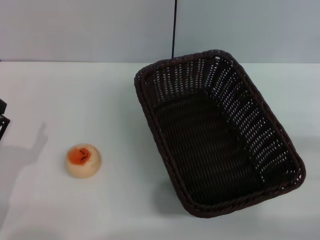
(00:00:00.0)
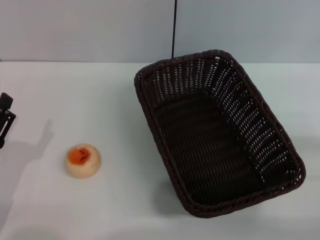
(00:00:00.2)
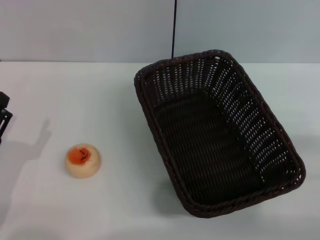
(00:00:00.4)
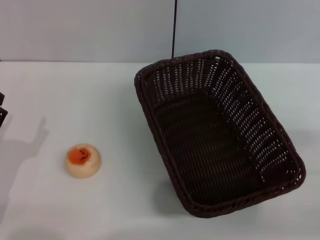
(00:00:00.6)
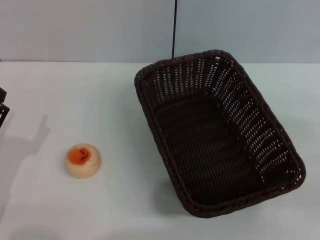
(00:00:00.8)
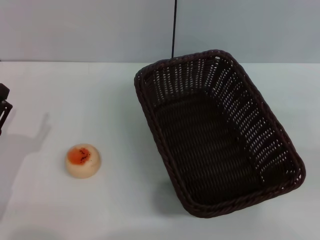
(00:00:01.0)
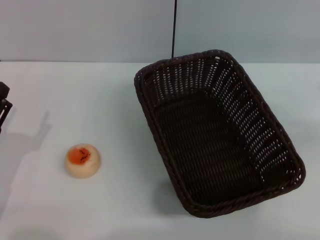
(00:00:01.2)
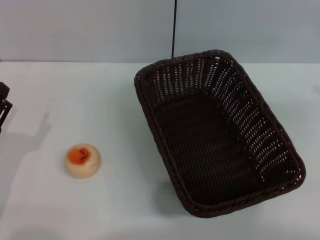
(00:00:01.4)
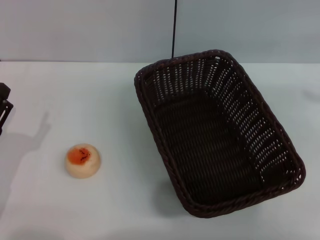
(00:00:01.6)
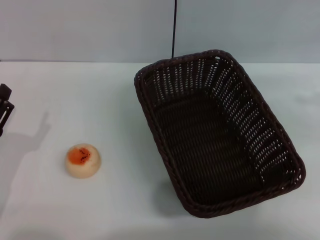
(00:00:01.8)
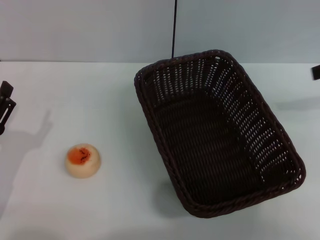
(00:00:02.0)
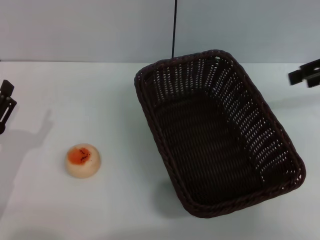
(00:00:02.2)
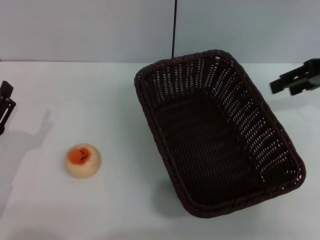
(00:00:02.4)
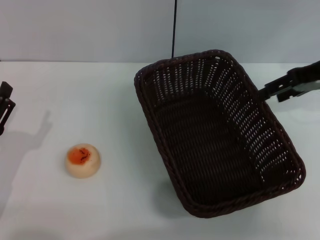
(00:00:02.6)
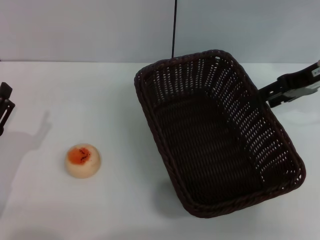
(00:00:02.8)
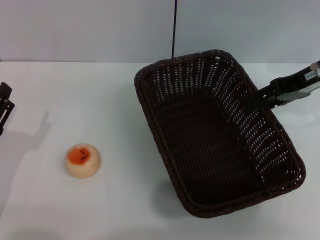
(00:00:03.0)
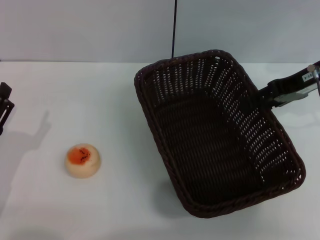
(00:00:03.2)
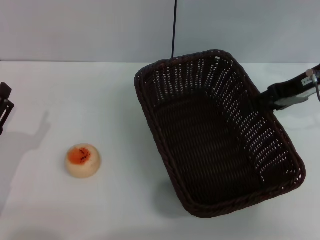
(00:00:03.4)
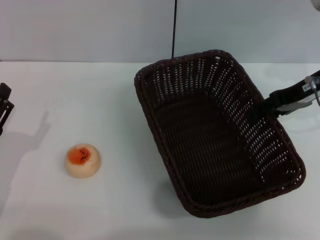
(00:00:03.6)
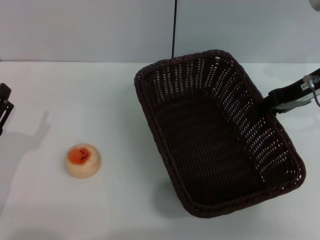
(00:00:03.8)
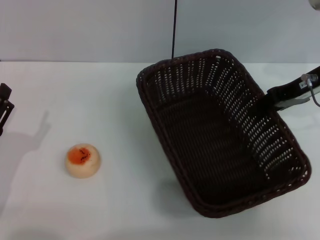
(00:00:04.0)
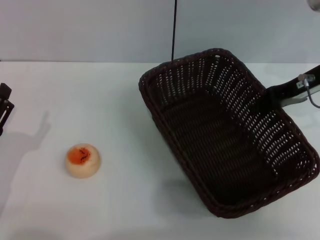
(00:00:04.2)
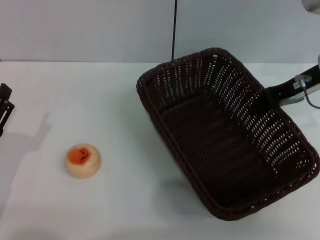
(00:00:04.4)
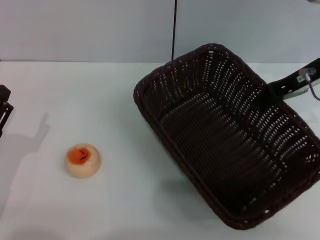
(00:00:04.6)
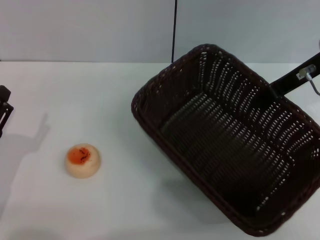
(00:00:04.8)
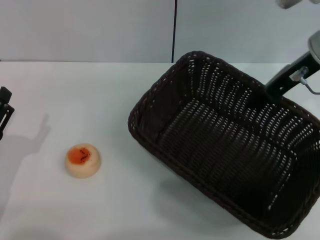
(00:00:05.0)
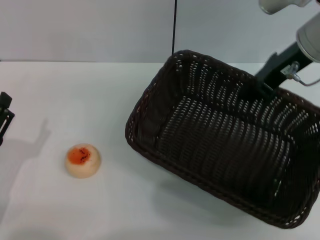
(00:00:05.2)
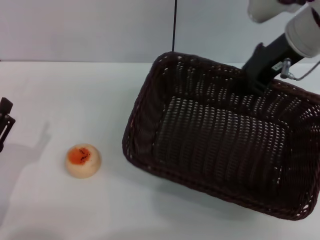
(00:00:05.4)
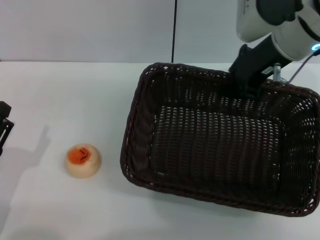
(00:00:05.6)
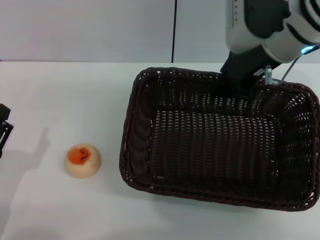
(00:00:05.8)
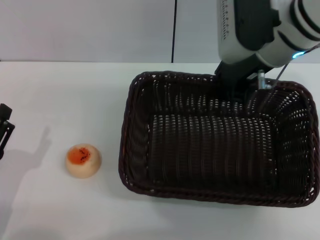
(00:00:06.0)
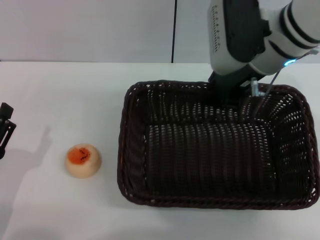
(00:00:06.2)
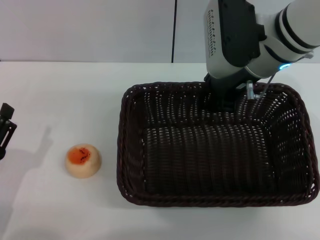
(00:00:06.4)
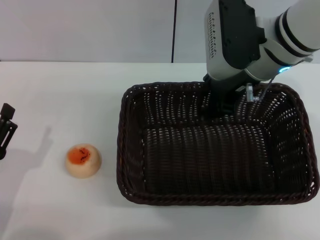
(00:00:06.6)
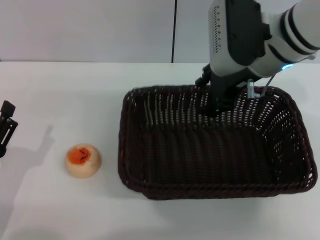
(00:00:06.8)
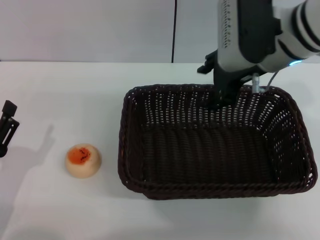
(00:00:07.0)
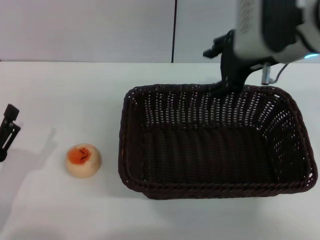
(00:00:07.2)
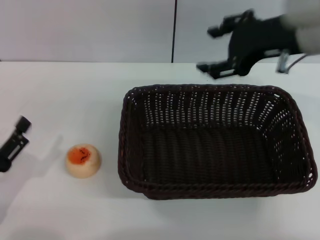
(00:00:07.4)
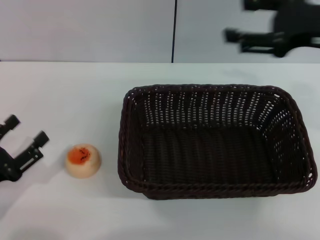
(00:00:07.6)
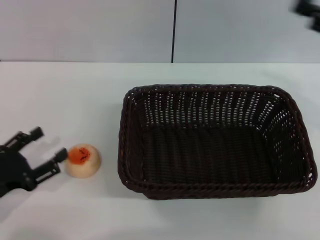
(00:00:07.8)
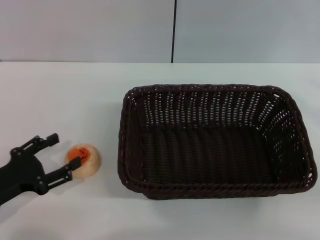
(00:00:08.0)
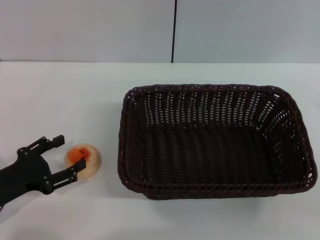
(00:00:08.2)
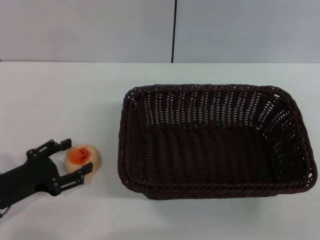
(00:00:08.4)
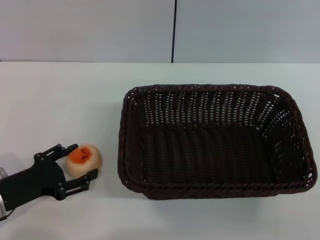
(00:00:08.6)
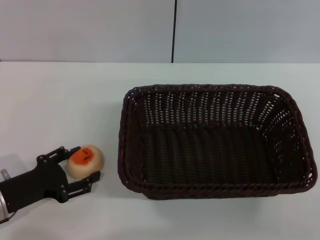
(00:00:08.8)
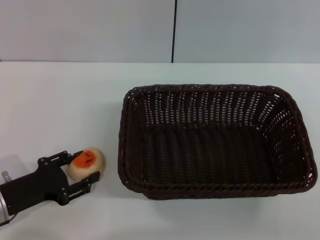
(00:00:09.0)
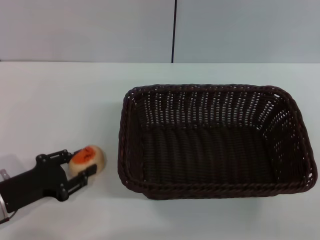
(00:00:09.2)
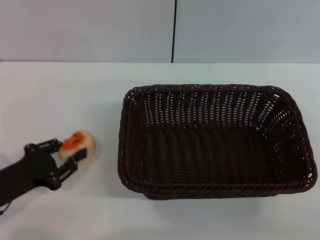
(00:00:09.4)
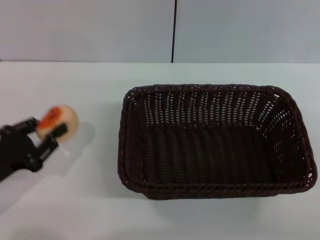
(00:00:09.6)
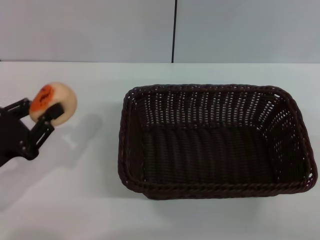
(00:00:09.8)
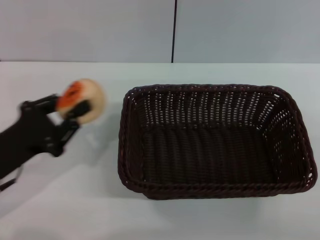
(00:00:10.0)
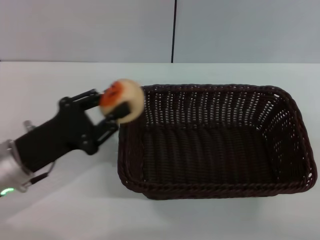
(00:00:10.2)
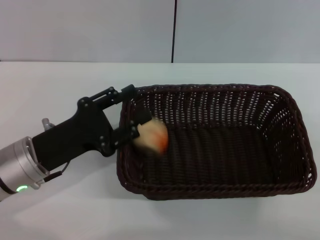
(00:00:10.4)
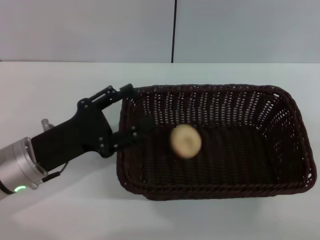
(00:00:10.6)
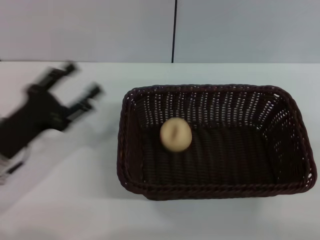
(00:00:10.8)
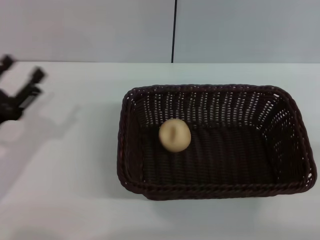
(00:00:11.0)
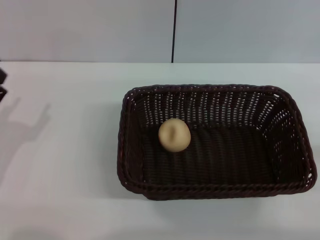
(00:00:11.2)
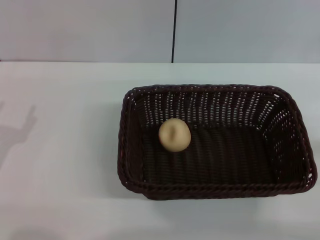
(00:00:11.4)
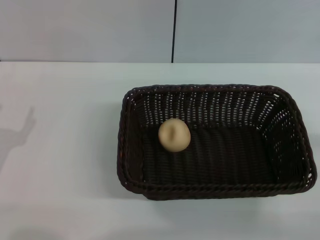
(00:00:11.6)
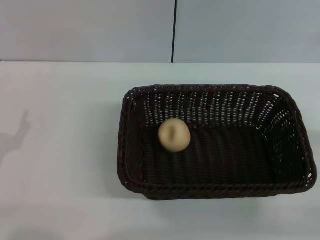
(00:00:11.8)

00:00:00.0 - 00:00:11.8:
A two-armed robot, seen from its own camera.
Step, 00:00:00.0 - 00:00:07.2: Move the basket to the center of view with the right gripper.
Step, 00:00:07.4 - 00:00:09.8: Pick up the egg yolk pastry with the left gripper.
Step, 00:00:10.0 - 00:00:10.6: Place the egg yolk pastry into the basket with the left gripper.
00:00:01.4 - 00:00:03.0: The right gripper shifts about 20 cm to the left and forward.
00:00:03.0 - 00:00:04.4: The right gripper closes its fingers.
00:00:04.4 - 00:00:06.0: The right gripper is displaced to the left by about 10 cm.
00:00:06.0 - 00:00:07.4: The right gripper is displaced to the right by approximately 5 cm, and opens its fingers.
00:00:07.4 - 00:00:08.8: The right gripper moves to the right, backward and downward, roughly 30 cm. Meanwhile the left gripper shifts approximately 5 cm forward.
00:00:08.8 - 00:00:10.4: The left gripper moves to the right and upward, roughly 10 cm, and closes up.
00:00:10.4 - 00:00:11.8: The left gripper shifts roughly 10 cm to the left and backward, and opens.

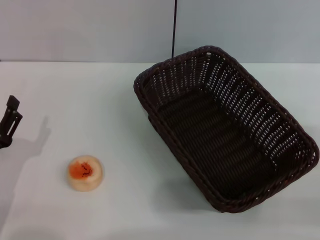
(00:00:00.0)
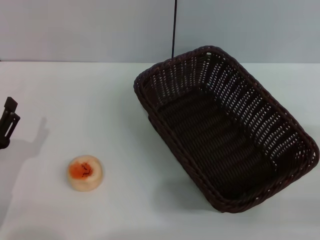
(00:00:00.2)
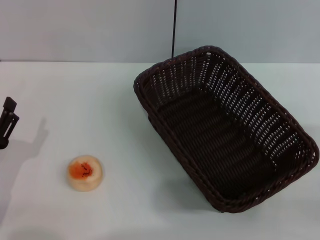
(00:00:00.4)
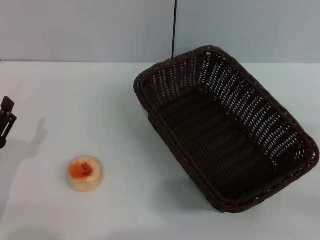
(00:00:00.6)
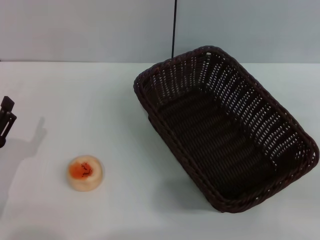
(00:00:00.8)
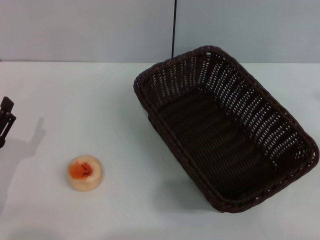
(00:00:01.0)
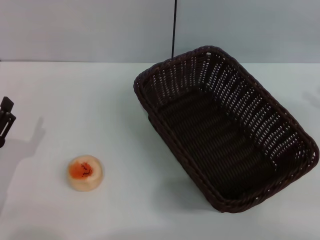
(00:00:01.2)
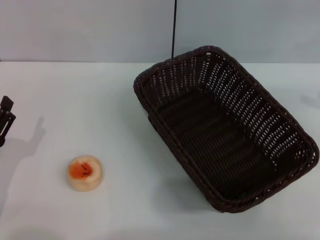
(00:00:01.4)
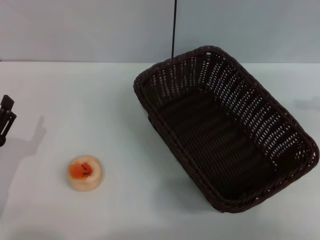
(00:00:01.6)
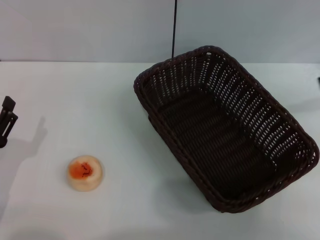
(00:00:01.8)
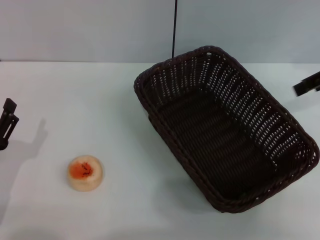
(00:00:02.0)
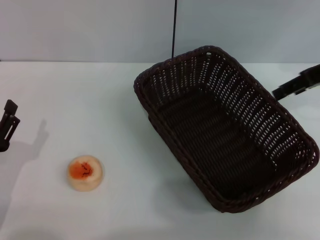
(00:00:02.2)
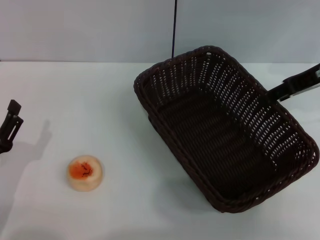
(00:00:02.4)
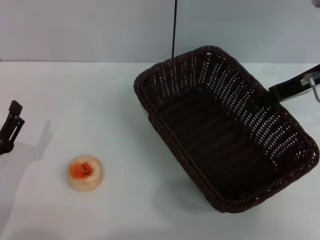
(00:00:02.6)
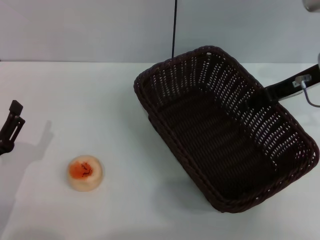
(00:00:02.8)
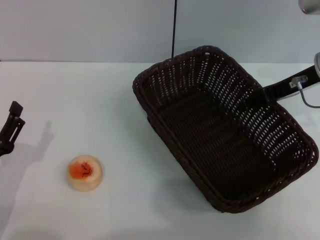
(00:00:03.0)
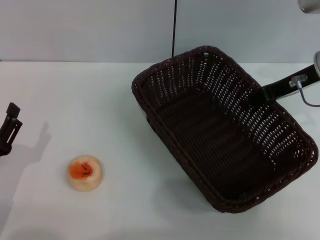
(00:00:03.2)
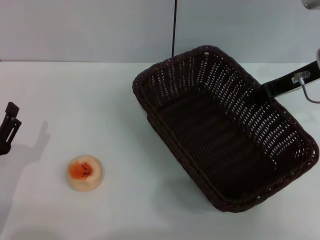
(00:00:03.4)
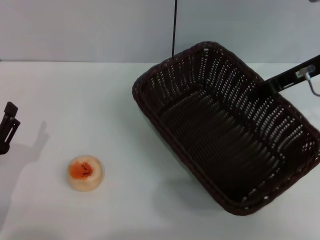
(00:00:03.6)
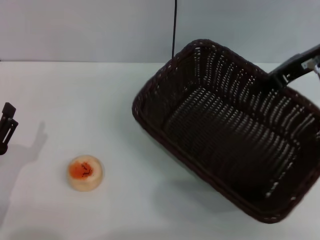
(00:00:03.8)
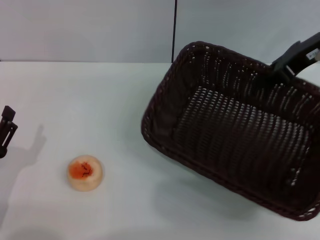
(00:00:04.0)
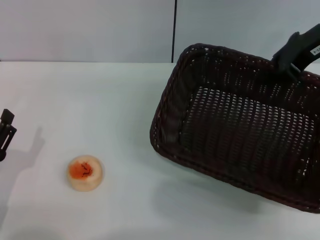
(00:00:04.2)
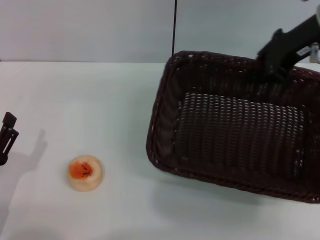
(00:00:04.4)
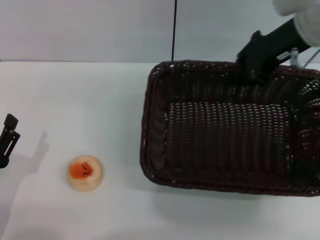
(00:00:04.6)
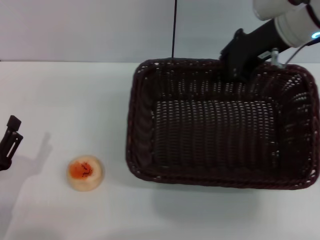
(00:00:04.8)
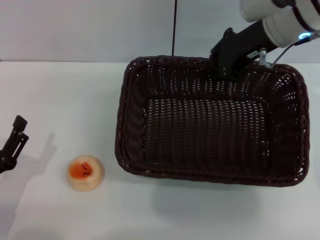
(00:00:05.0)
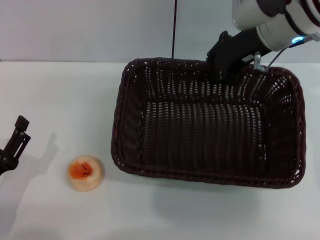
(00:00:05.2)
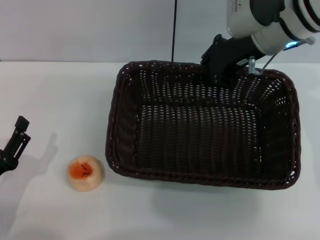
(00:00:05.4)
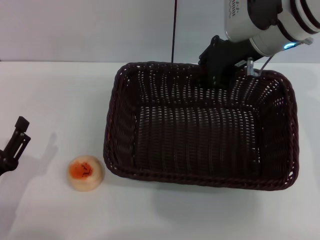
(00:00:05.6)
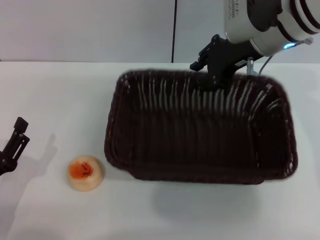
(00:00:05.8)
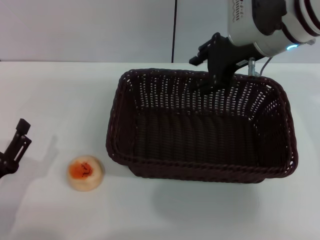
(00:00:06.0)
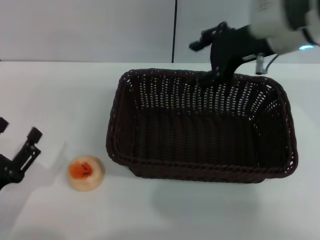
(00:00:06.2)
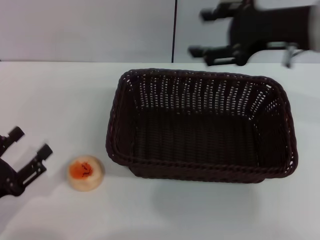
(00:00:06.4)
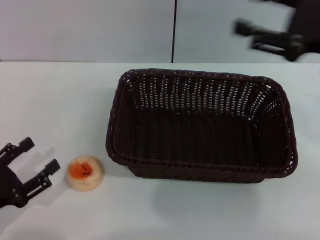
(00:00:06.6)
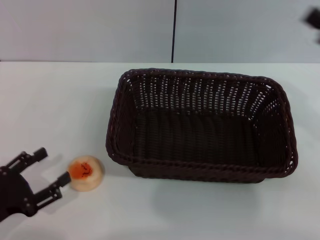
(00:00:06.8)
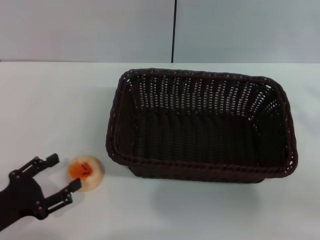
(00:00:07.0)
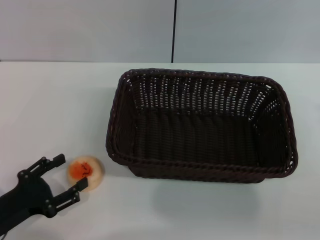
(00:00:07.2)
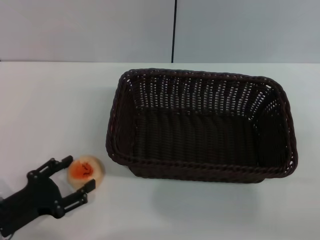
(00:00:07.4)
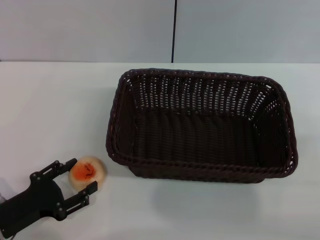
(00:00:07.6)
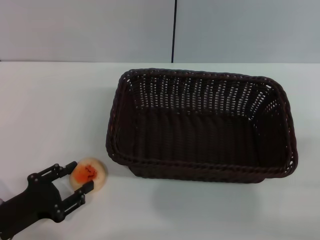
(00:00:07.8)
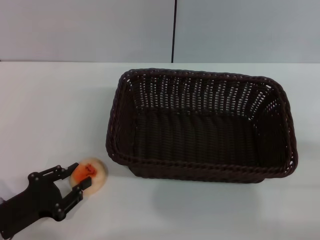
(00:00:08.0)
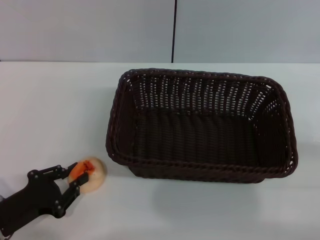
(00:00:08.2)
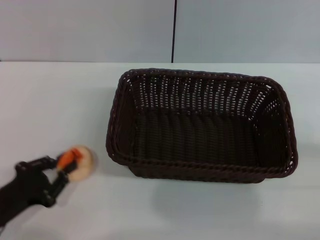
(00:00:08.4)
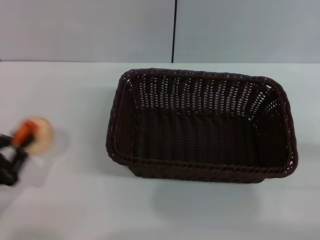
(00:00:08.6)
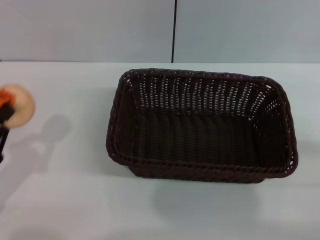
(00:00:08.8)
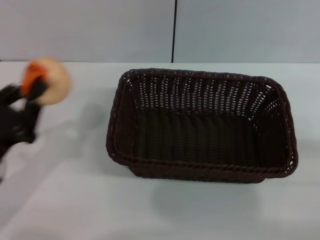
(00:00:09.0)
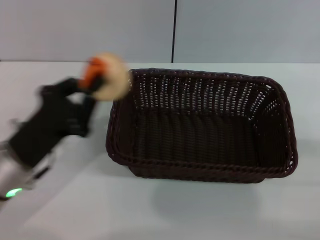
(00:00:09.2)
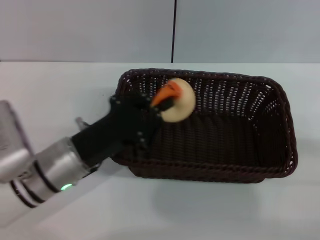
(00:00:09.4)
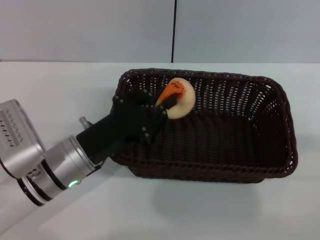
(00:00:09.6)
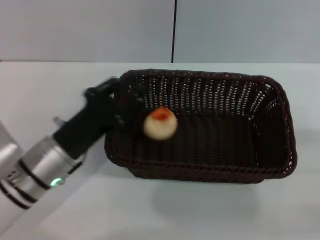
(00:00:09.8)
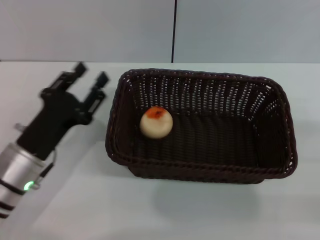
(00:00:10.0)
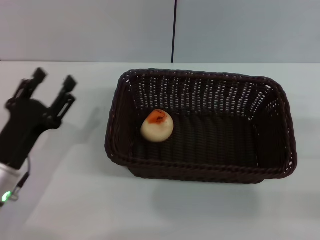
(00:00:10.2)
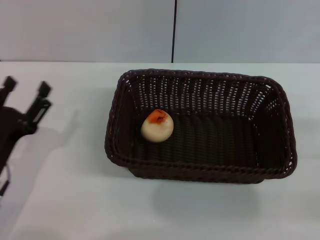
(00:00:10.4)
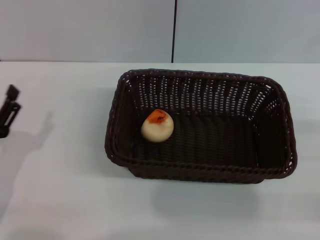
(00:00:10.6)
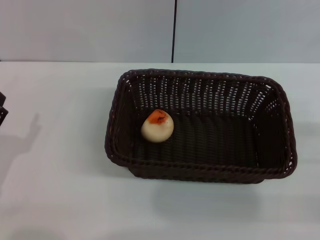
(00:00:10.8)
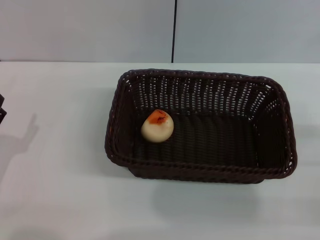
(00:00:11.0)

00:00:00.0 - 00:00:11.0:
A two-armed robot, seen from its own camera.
Step, 00:00:00.0 - 00:00:06.2: Move the basket to the center of view with the right gripper.
Step, 00:00:06.6 - 00:00:08.4: Pick up the egg yolk pastry with the left gripper.
Step, 00:00:08.6 - 00:00:10.2: Place the egg yolk pastry into the basket with the left gripper.
00:00:00.0 - 00:00:01.6: The right gripper heads upward and forward, covering roughly 25 cm.
00:00:01.6 - 00:00:03.2: The right gripper heads to the left and downward, covering roughly 15 cm.
00:00:03.2 - 00:00:04.8: The right gripper goes roughly 10 cm to the left and upward, and closes up.
00:00:04.8 - 00:00:06.2: The right gripper opens its fingers.
00:00:06.2 - 00:00:07.8: The right gripper heads backward, to the right and downward, covering roughly 35 cm.
00:00:07.8 - 00:00:09.4: The left gripper shifts some 15 cm to the right and forward, and closes.
00:00:09.4 - 00:00:11.0: The left gripper travels to the left and backward by roughly 15 cm, and opens up.
